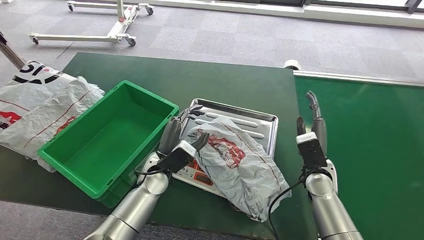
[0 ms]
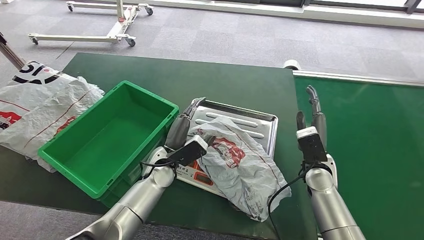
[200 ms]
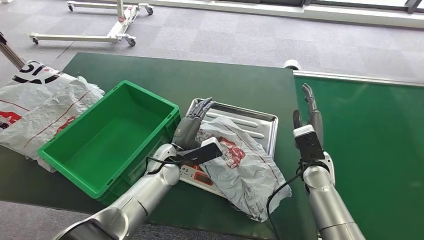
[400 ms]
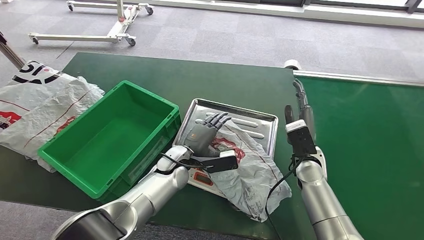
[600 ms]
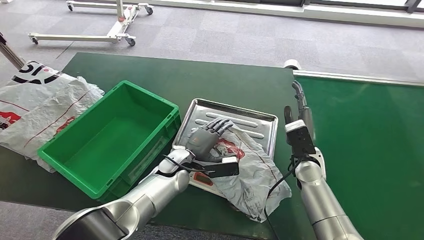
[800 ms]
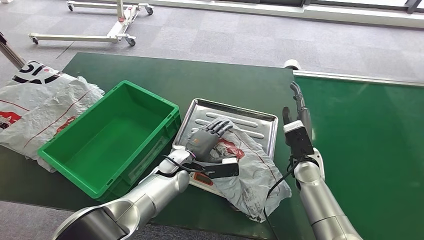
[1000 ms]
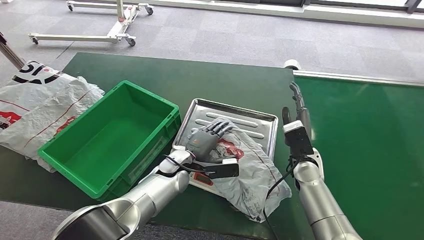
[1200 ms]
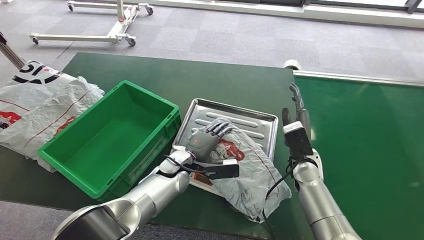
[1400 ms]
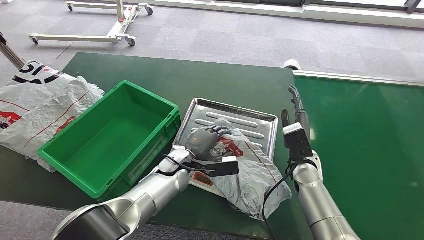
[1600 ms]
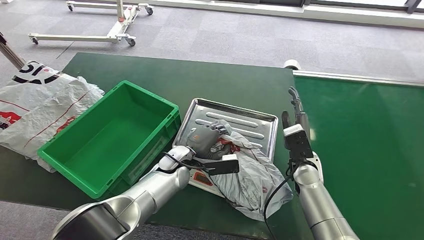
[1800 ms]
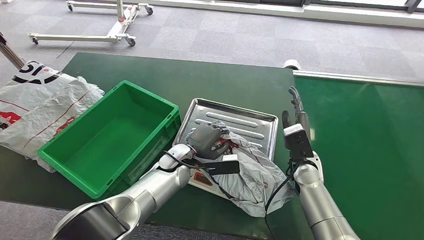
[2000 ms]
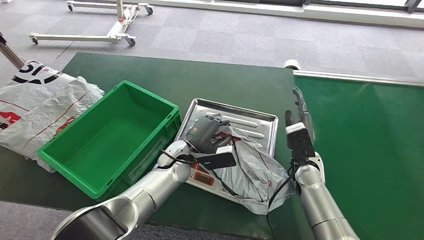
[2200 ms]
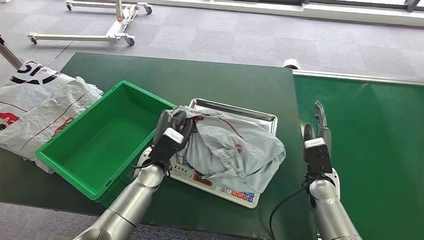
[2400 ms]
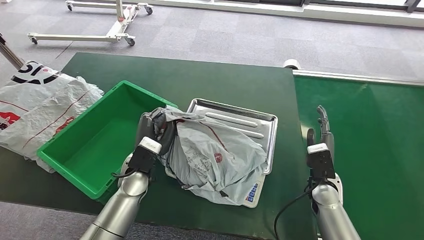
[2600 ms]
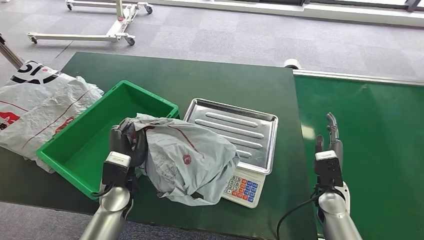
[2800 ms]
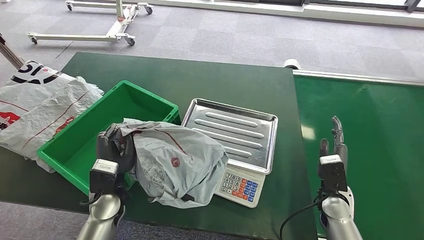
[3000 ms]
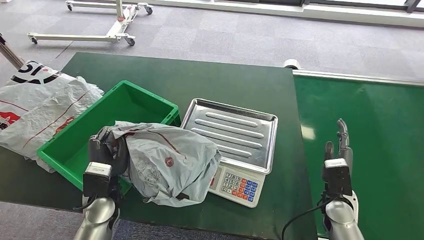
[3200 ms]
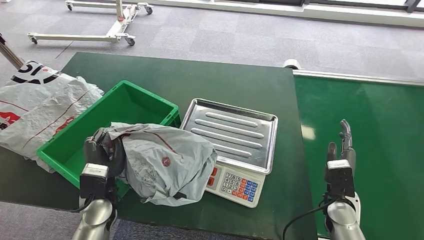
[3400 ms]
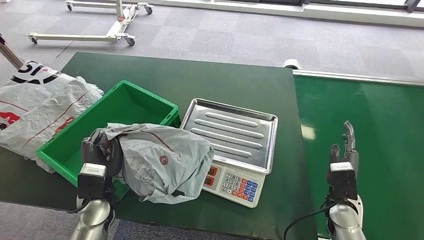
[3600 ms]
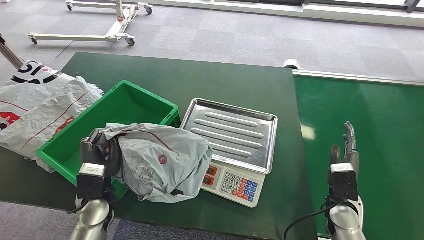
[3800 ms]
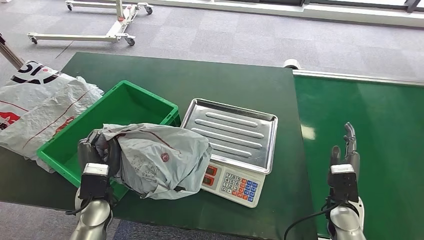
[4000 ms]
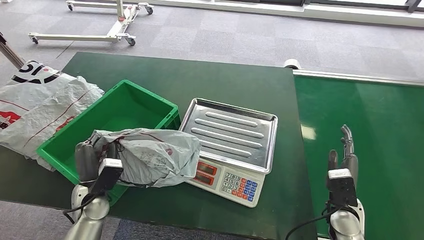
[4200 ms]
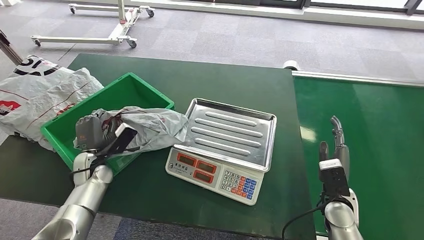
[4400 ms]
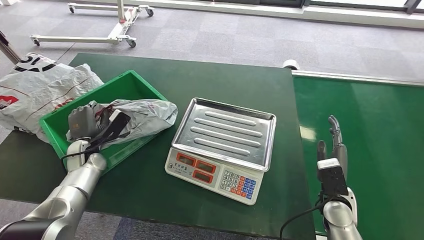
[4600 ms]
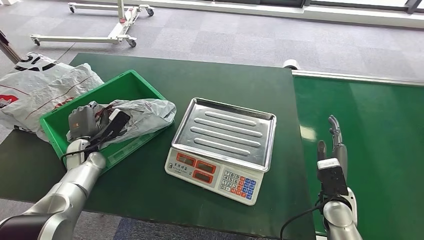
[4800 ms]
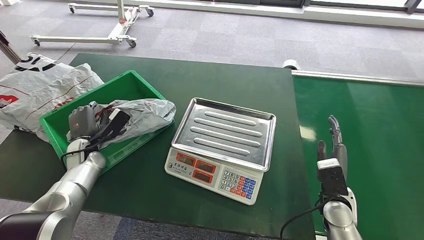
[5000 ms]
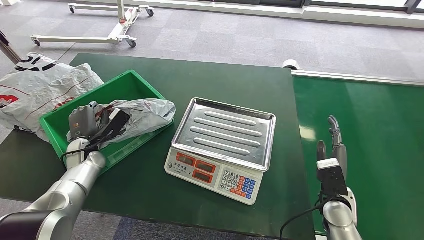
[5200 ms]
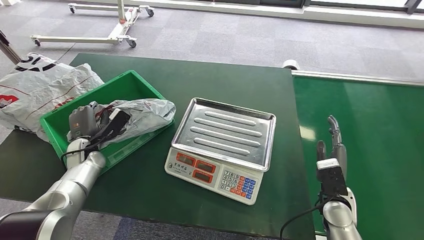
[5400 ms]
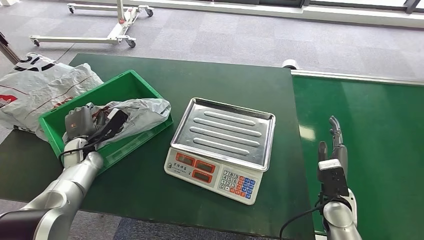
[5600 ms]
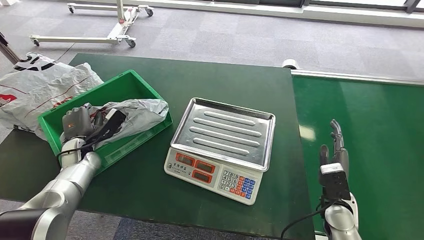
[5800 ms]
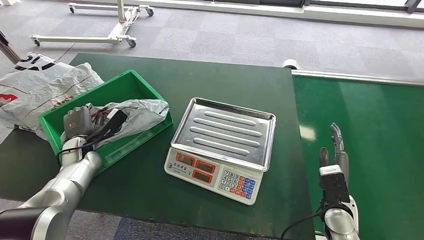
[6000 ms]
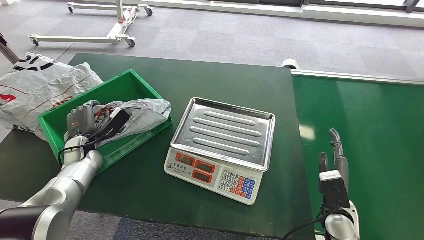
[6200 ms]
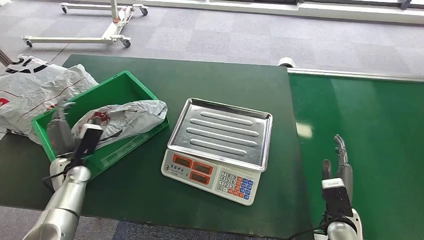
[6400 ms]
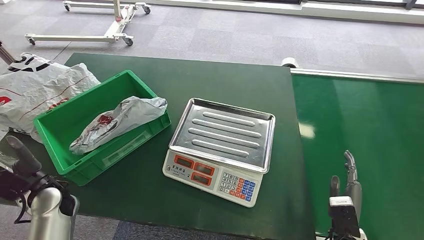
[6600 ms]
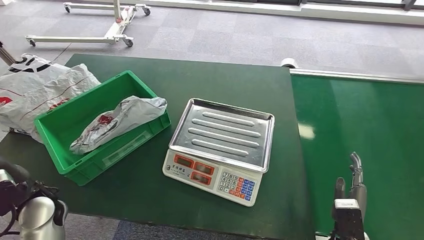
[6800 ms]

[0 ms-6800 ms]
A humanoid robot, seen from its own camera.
Step, 0 ms to 3600 ms: Pick up the package from the inbound machine.
Step, 3800 ms to 6800 ms: Place the package into the parcel locker.
0 ms to 1400 ms: The left hand shifts by approximately 5 cm.
2800 ms to 4000 ms: The left hand moves to the left, approximately 5 cm.

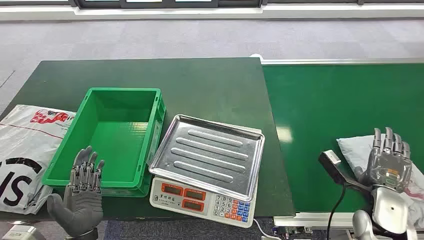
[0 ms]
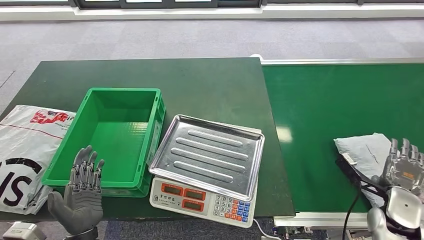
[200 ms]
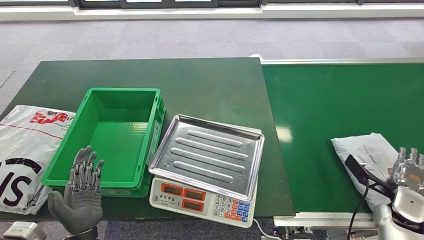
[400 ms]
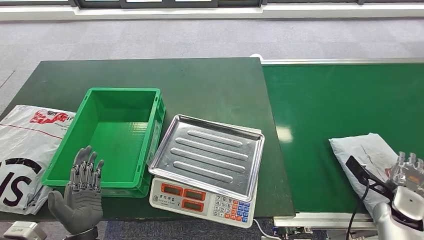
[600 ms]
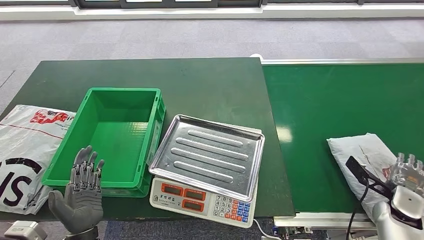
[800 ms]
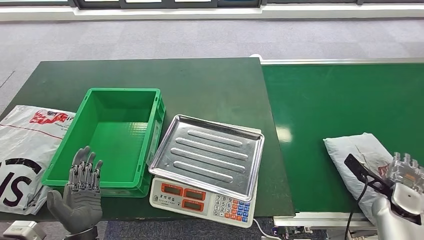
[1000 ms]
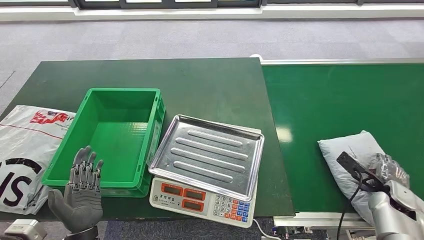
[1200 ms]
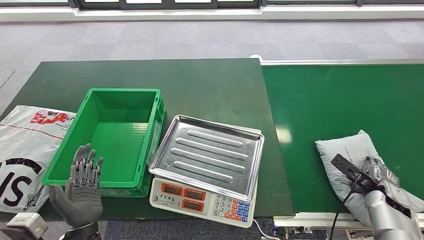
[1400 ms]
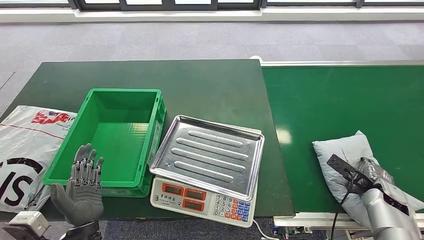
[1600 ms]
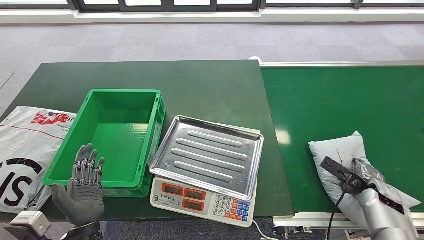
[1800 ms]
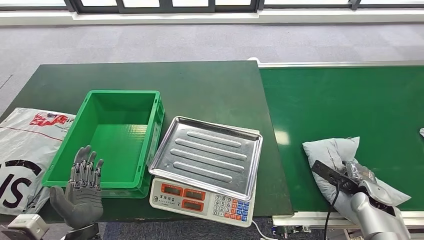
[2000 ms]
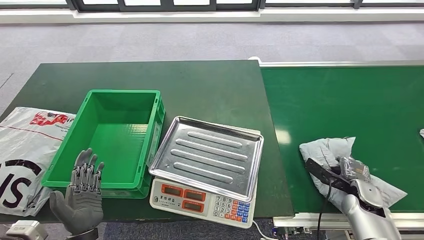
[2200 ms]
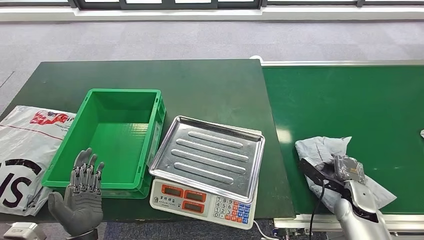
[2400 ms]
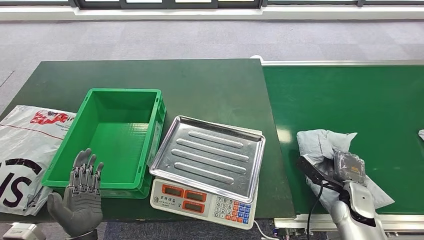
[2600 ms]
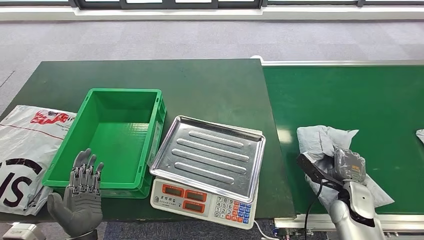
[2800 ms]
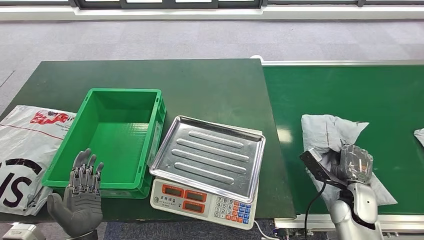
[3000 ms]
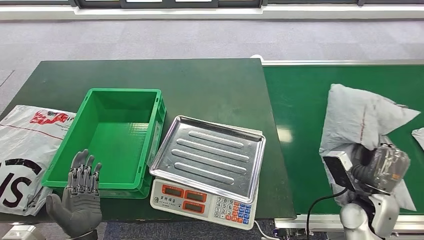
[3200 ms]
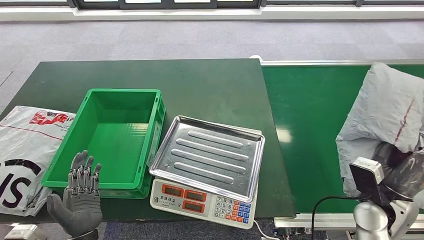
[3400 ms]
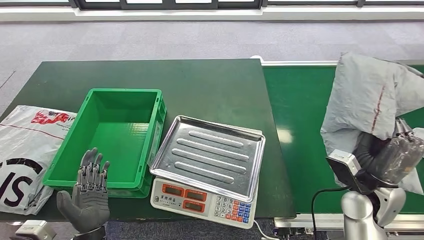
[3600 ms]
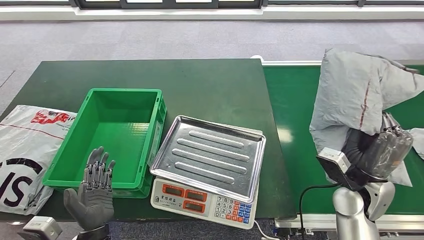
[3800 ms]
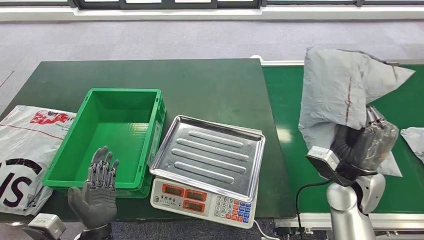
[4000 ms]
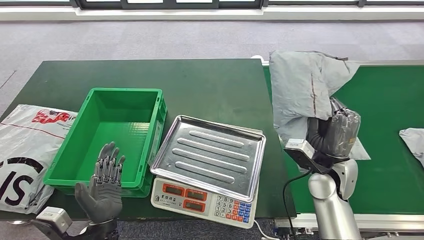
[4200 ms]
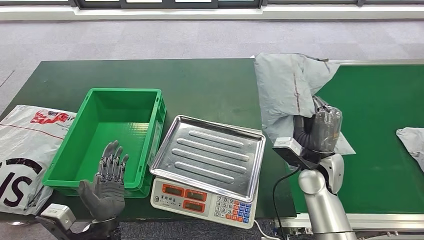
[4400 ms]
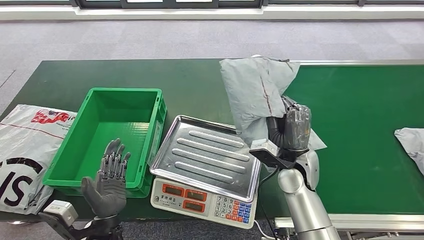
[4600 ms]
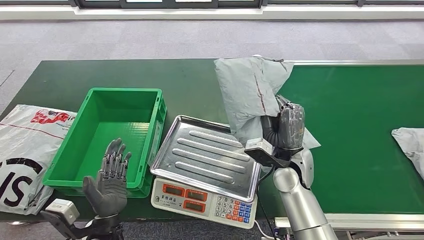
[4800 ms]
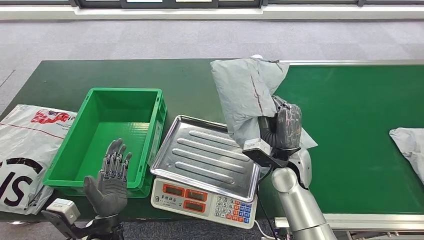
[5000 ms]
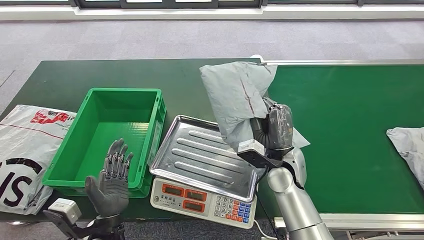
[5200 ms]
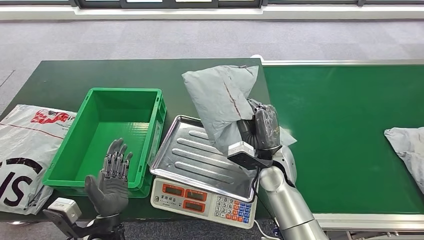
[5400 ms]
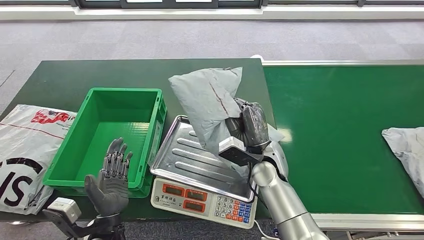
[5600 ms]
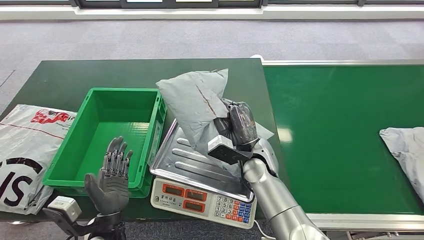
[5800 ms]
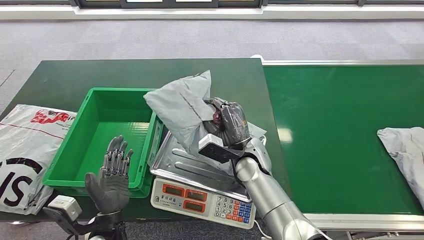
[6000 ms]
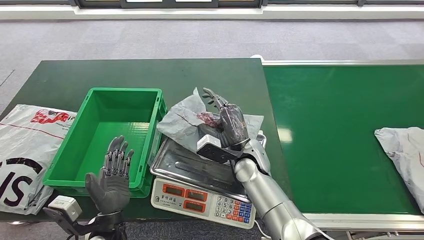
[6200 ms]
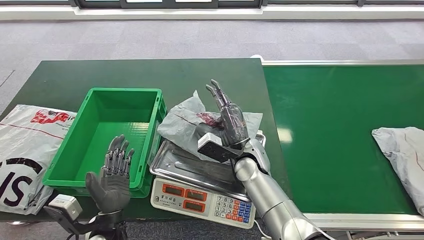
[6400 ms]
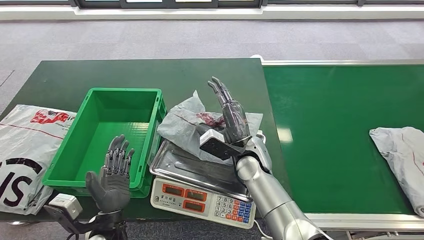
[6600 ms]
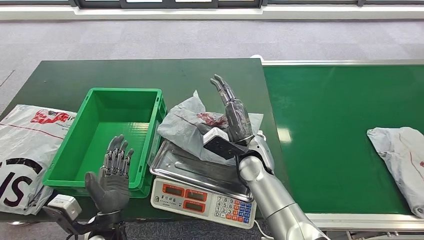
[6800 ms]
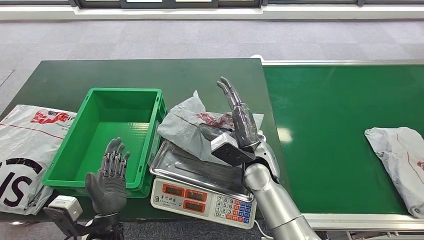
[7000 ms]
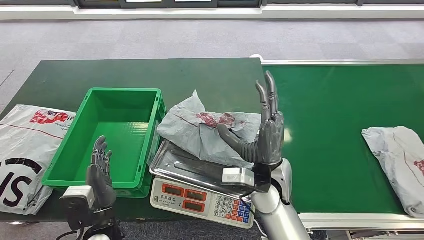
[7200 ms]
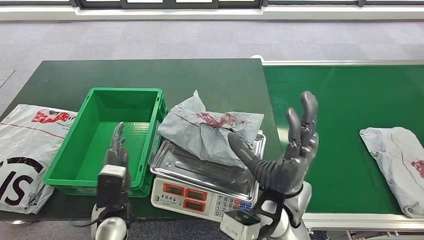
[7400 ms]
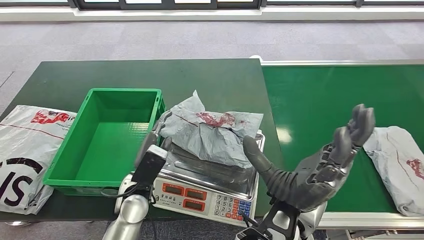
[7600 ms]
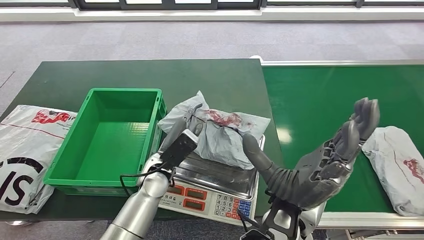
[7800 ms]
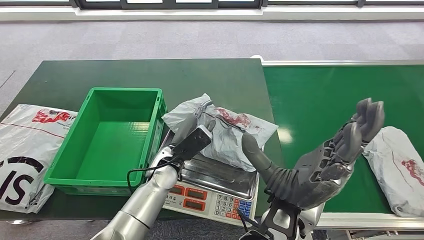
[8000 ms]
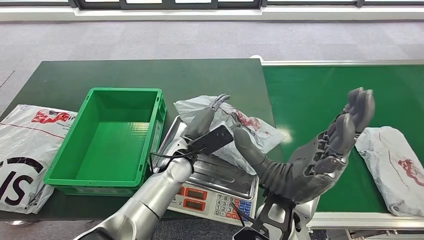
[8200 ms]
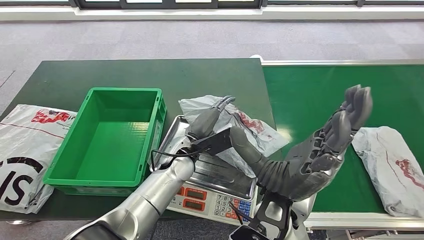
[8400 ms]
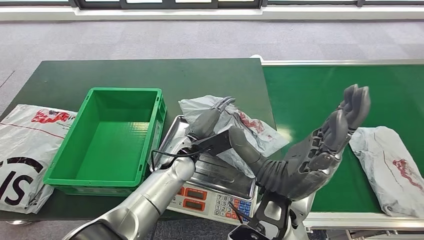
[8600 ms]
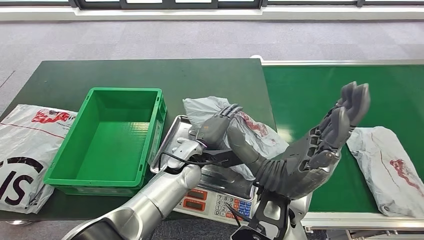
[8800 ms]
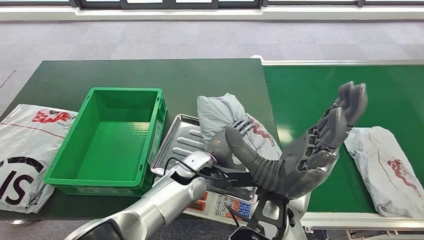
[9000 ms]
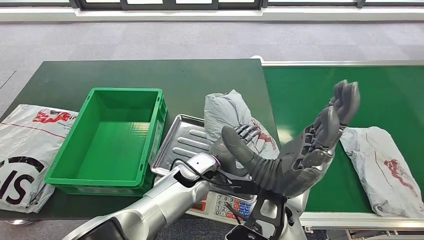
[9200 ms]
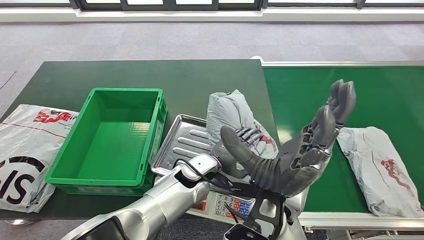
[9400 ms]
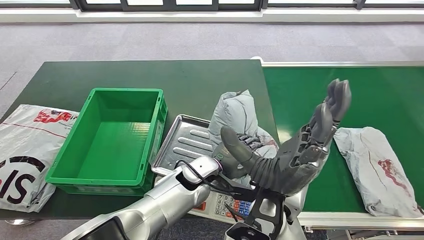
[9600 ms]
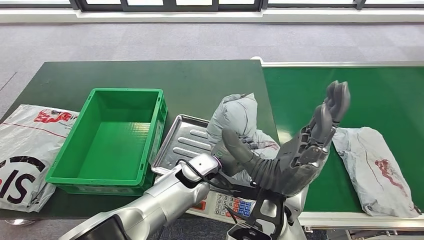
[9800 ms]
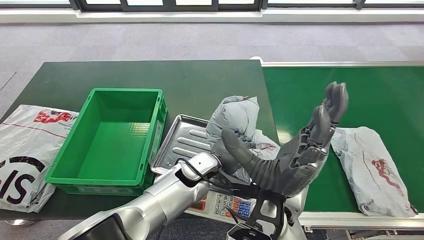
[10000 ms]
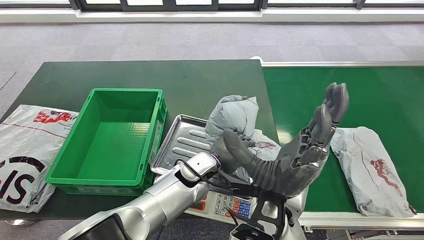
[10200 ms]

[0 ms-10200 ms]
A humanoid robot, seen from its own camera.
Step, 0 ms to 4000 ms: Pick up the package from the conveyor belt.
Step, 4200 ms to 6600 ms: Place the package onto the inbound machine.
1400 ms to 3000 ms: The right hand shifts approximately 10 cm to the left.
5800 ms to 7200 ms: The right hand travels backward by approximately 5 cm.
